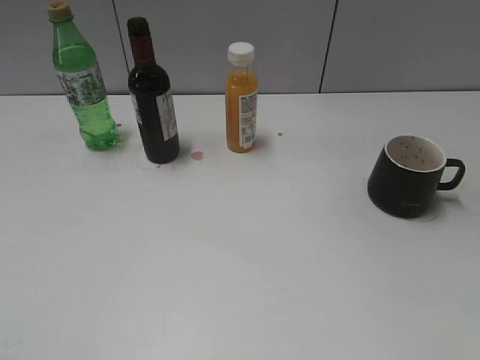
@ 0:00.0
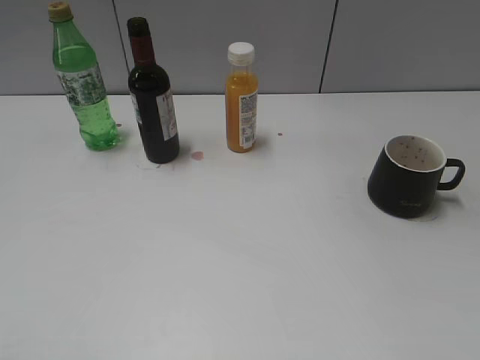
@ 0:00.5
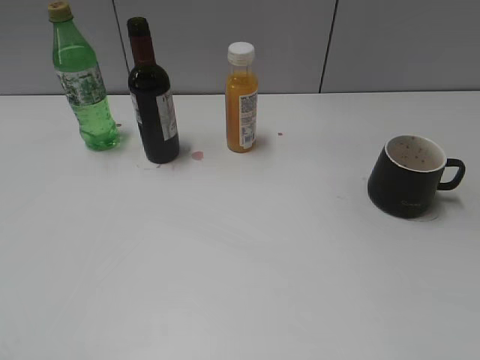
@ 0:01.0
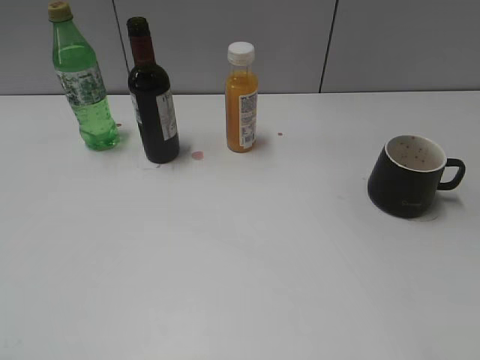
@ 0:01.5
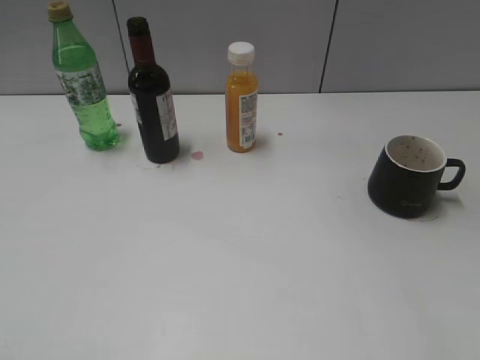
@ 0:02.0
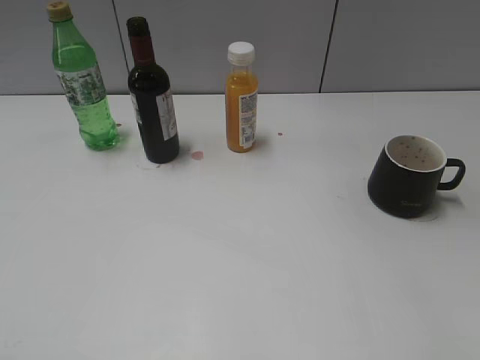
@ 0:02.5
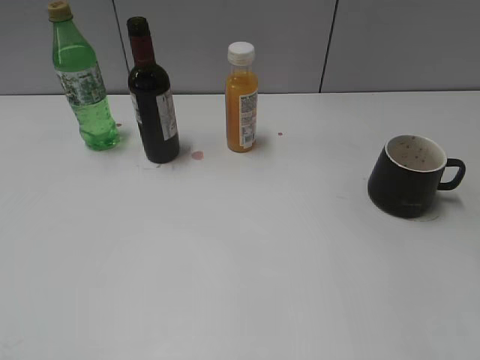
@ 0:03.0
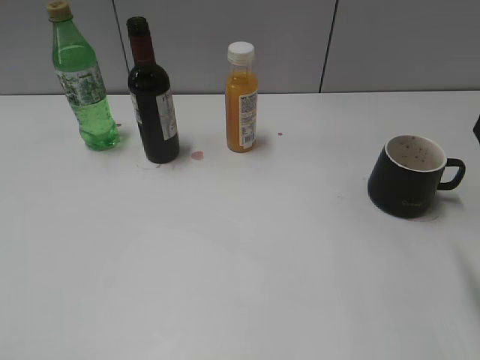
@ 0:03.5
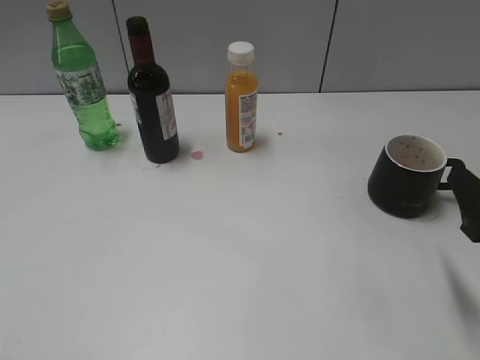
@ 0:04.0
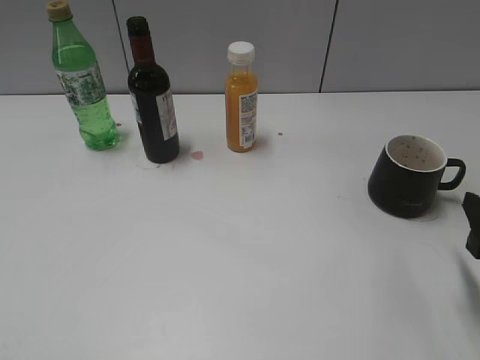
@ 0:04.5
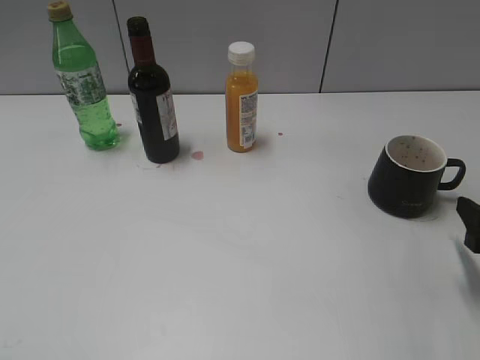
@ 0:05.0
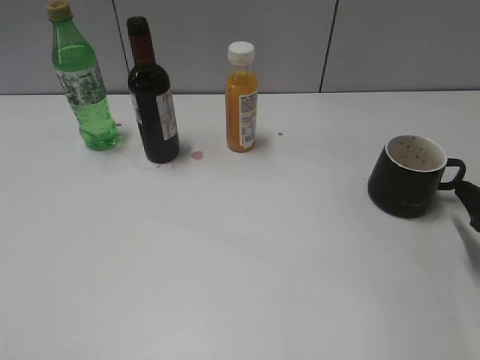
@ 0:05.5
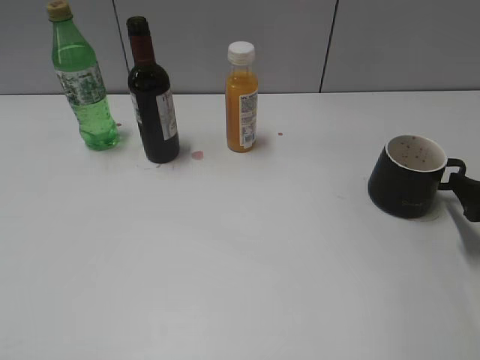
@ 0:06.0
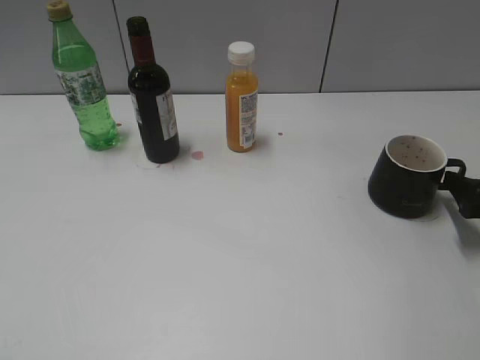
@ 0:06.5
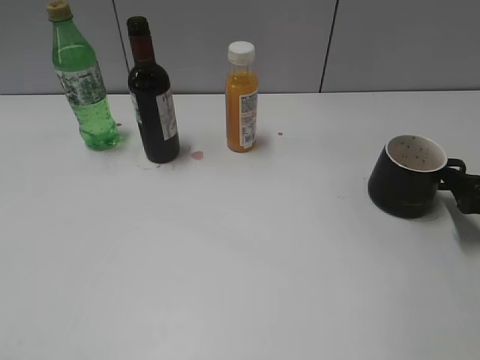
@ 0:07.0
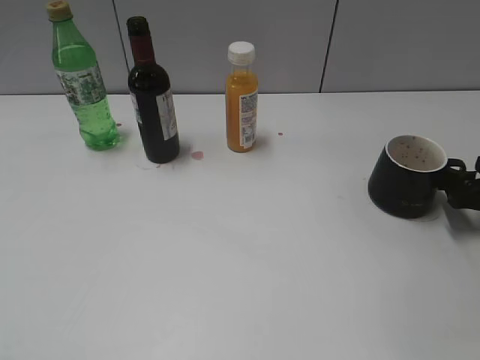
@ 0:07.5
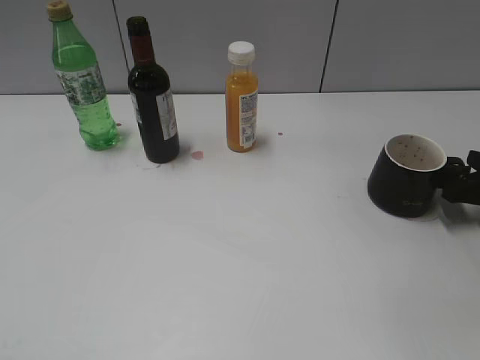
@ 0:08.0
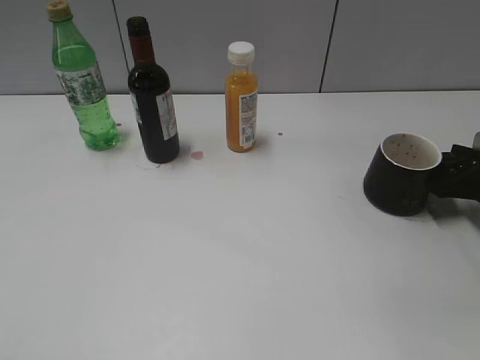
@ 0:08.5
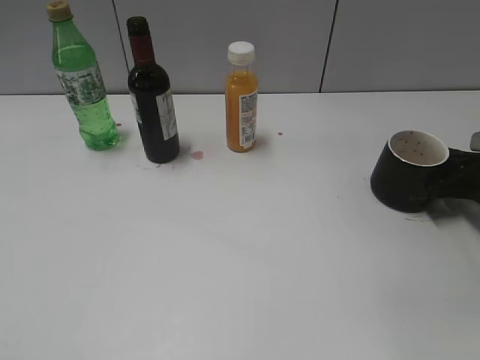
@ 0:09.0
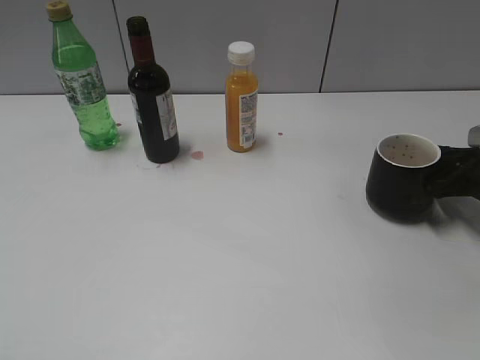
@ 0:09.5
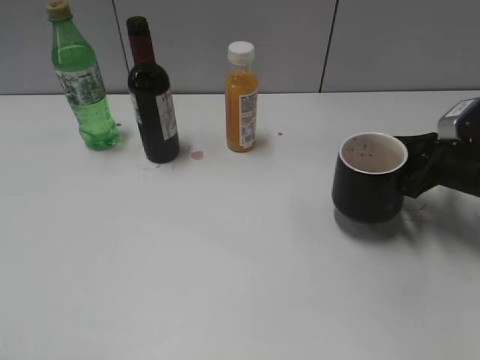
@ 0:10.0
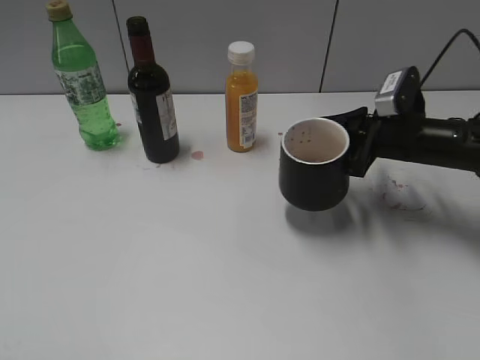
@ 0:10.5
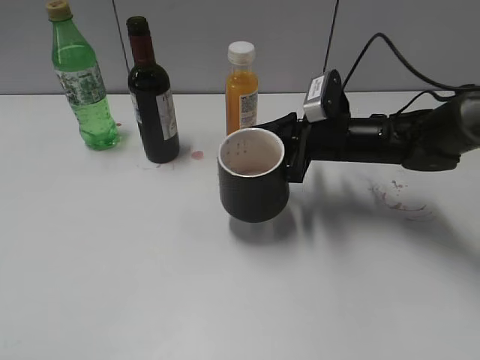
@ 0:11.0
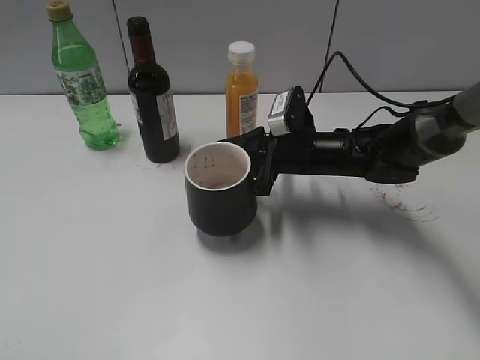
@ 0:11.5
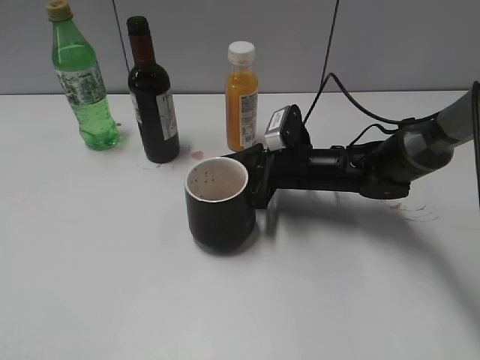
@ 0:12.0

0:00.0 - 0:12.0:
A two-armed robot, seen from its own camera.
Step, 0:01.0 - 0:09.0: Grasp the black cup with right gripper.
0:02.0 - 0:04.0: The right gripper shifts about 15 cm downward and forward.
0:04.0 - 0:06.0: The right gripper travels forward, to the right and downward by roughly 15 cm.
0:06.0 - 0:08.0: The right gripper travels forward by roughly 5 cm.
0:08.0 - 0:10.0: The right gripper shifts roughly 5 cm to the left, and closes.
0:10.0 - 0:12.0: The right gripper shifts some 20 cm to the left.

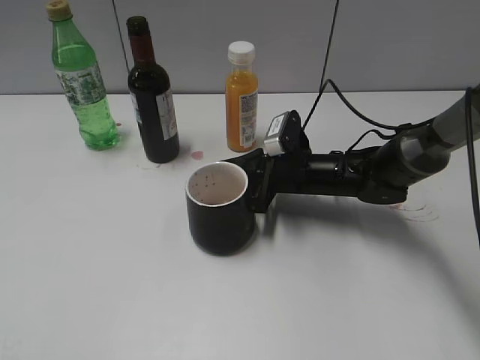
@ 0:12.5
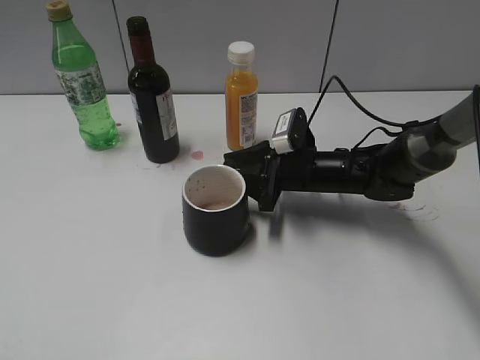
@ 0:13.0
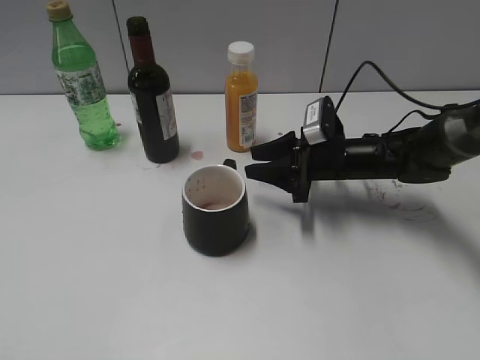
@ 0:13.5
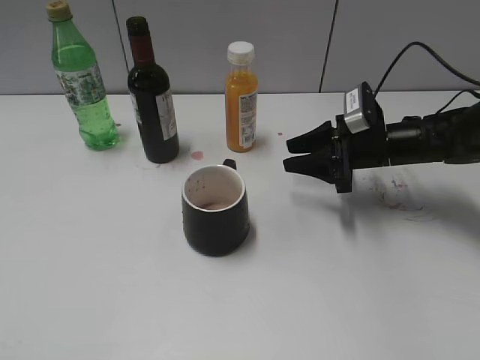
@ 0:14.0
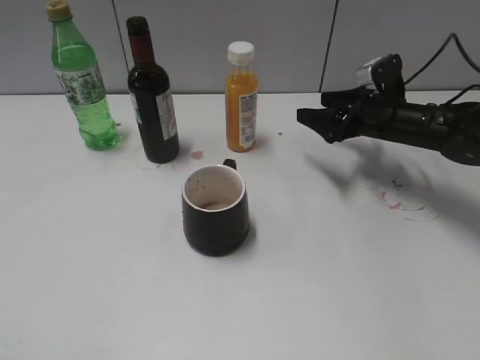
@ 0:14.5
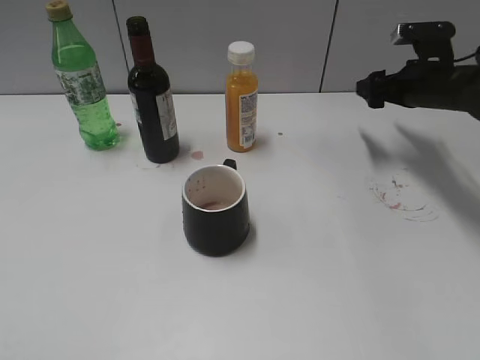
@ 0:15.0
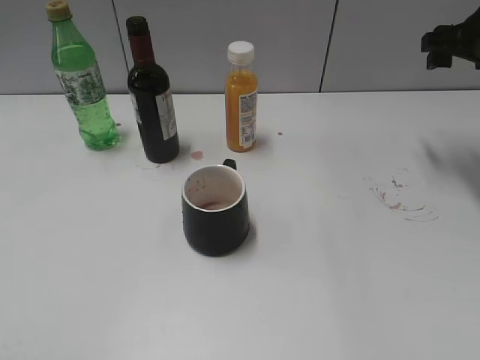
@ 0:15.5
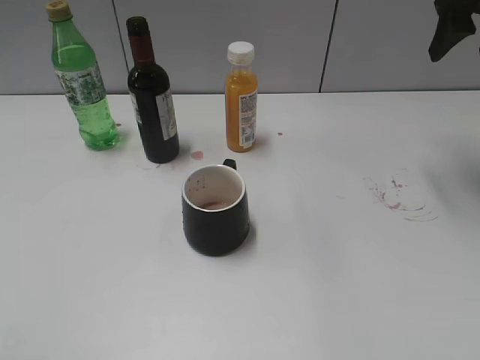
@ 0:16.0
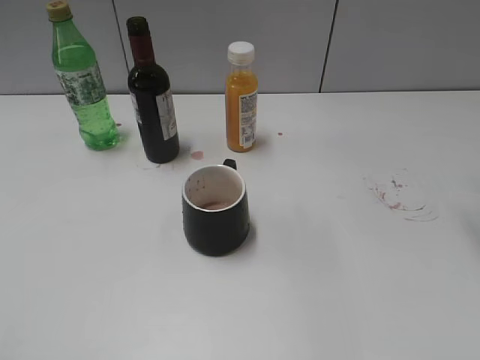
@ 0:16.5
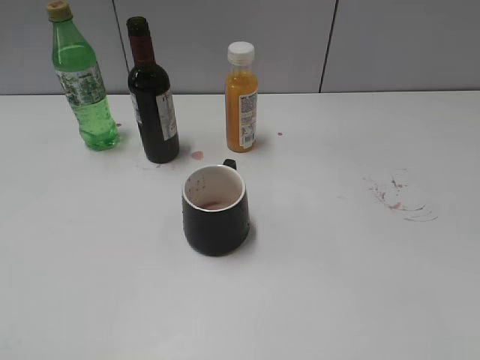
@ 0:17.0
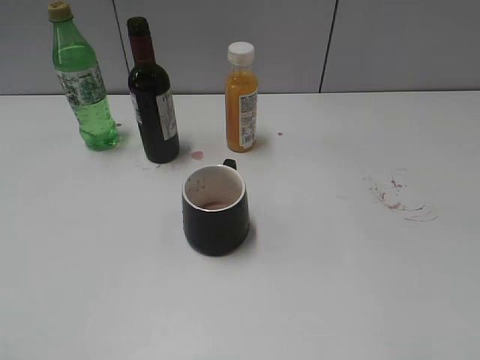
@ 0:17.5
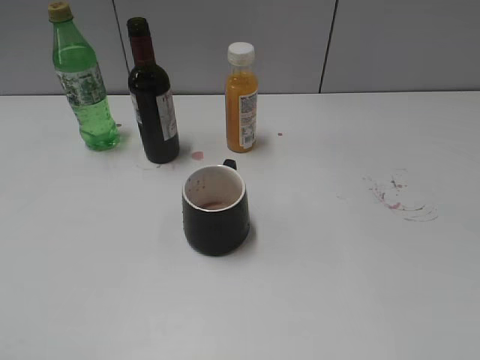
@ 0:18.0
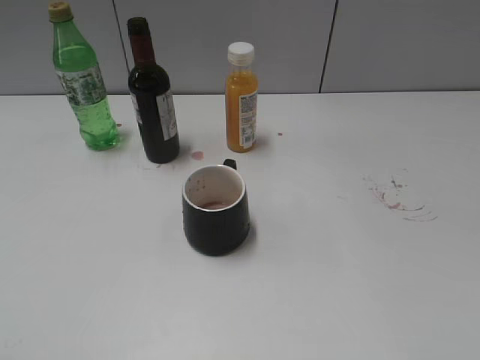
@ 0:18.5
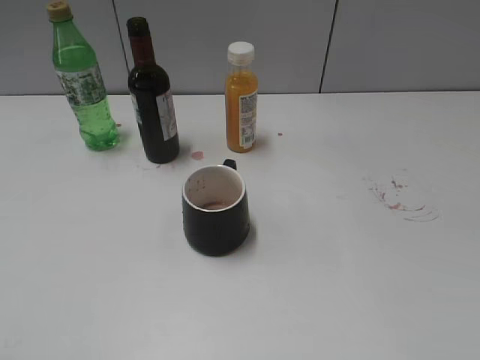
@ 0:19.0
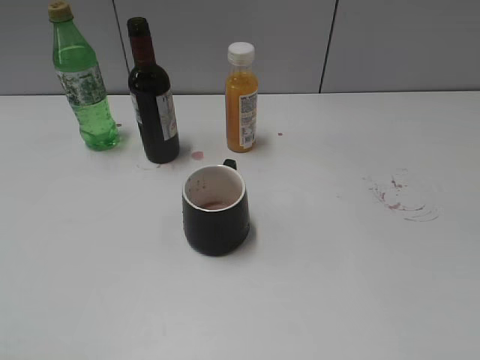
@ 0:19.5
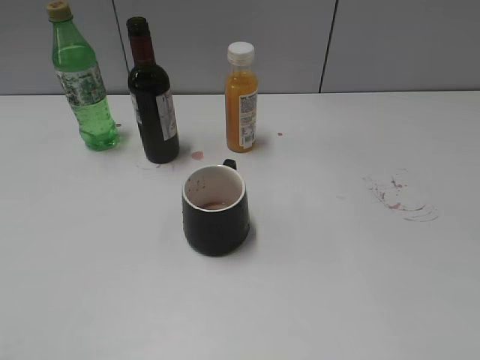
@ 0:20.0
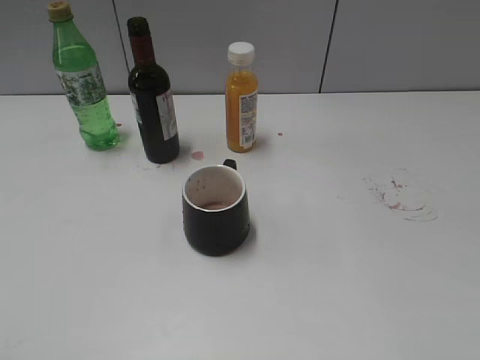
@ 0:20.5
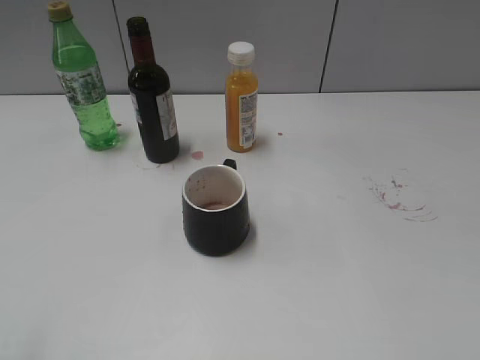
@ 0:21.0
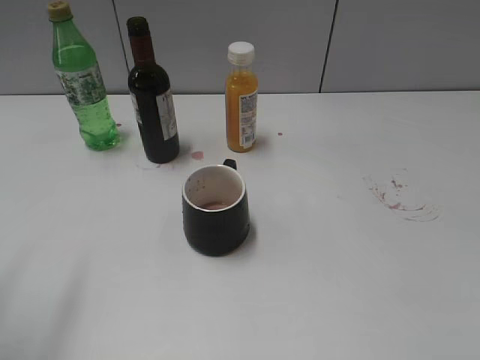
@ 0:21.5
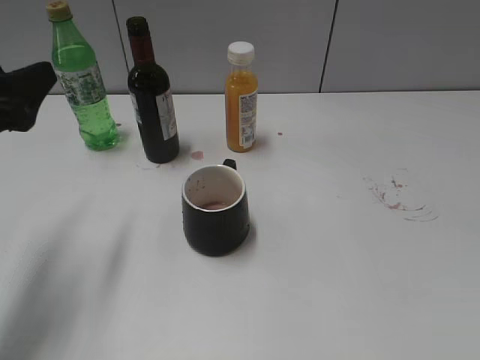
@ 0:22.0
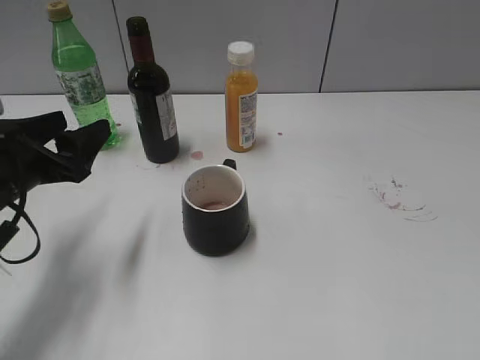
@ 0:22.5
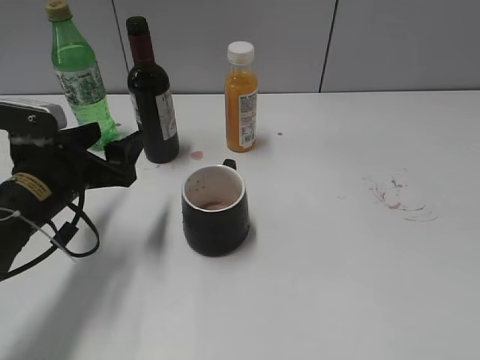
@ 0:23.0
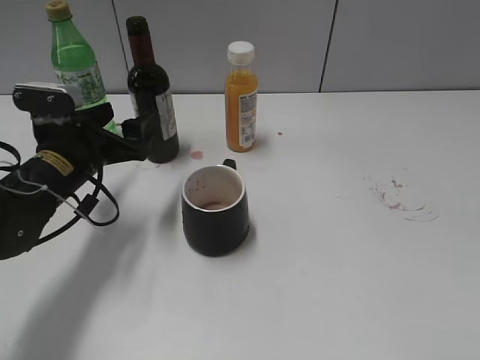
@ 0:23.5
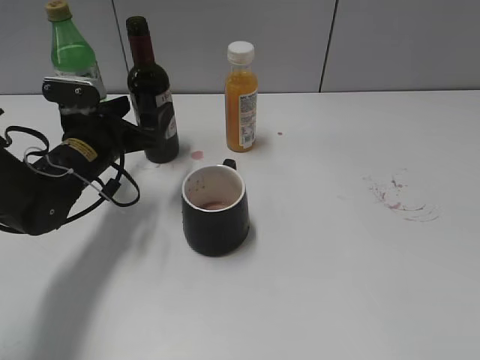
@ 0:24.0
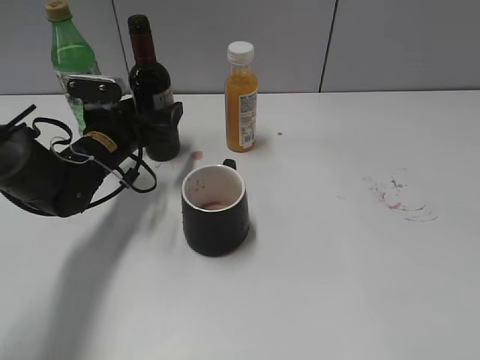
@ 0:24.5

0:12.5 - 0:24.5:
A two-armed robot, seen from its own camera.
0:12.5 - 0:14.5: The right gripper goes roughly 15 cm to the right and forward, and opens.
0:14.5 - 0:16.5: The right gripper is displaced upward and backward by approximately 30 cm.
0:20.5 - 0:22.5: The left gripper travels forward and downward by roughly 30 cm.
0:22.5 - 0:24.5: The left gripper heads forward, downward and to the right, covering about 15 cm, and opens.

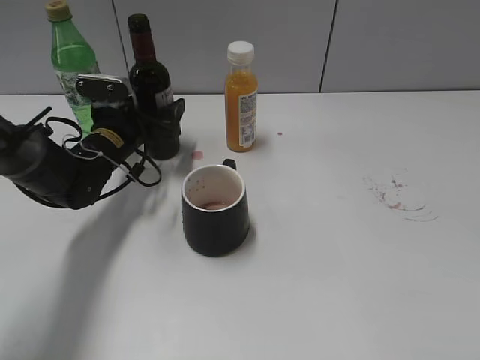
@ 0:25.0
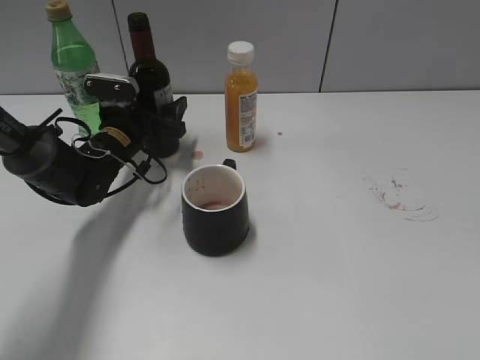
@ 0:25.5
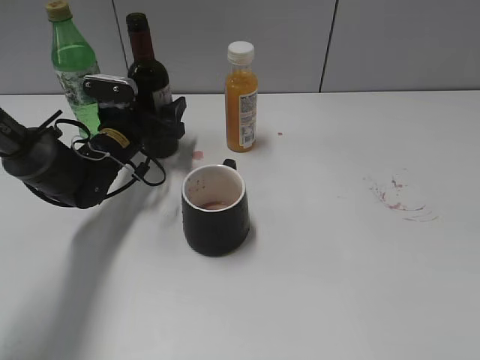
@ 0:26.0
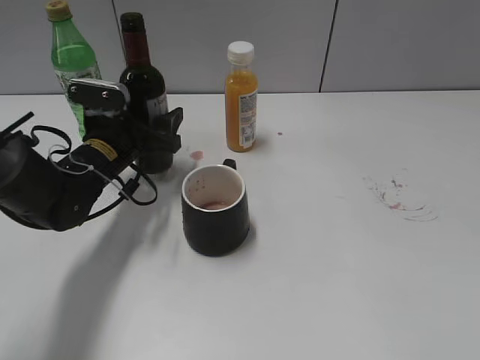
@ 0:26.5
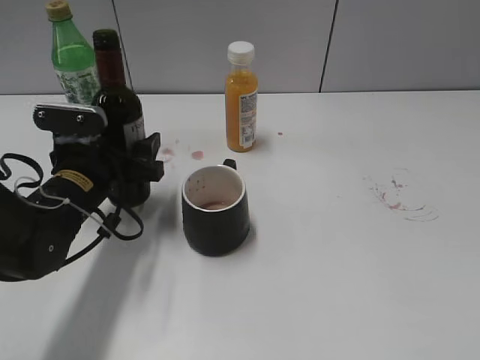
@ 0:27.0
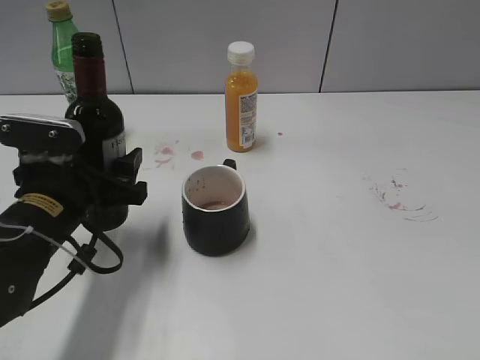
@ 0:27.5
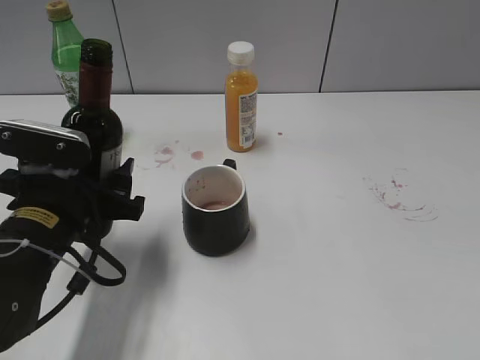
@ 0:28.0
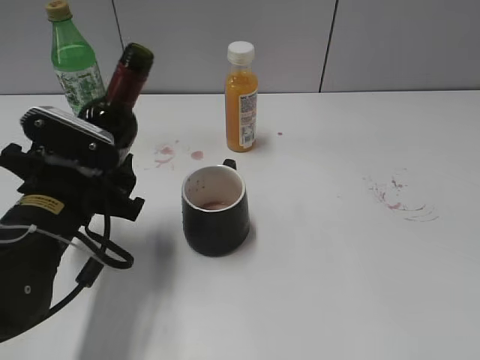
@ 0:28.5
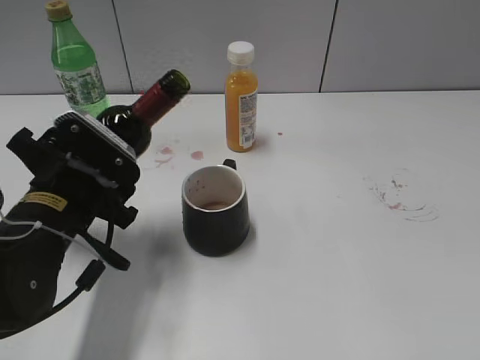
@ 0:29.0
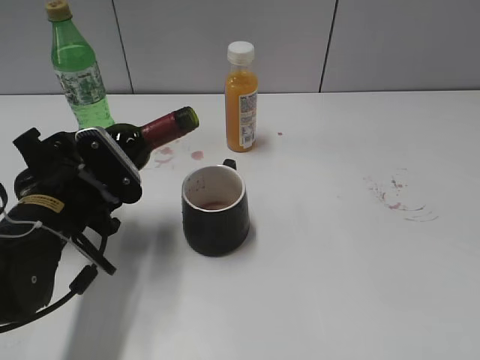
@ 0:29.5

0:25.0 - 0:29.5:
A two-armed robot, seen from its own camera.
0:25.0 - 0:27.0: The left gripper shifts roughly 10 cm backward, and closes up.
0:27.0 - 0:29.5: The left gripper travels backward by roughly 5 cm.
